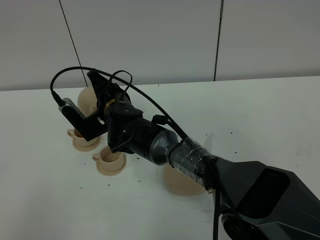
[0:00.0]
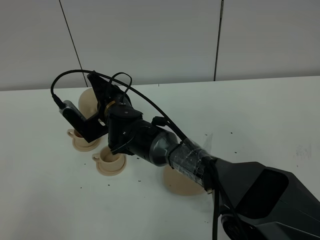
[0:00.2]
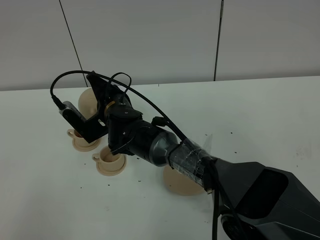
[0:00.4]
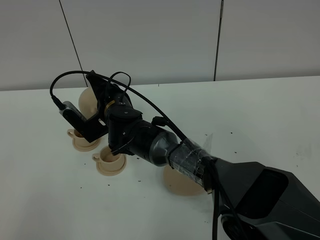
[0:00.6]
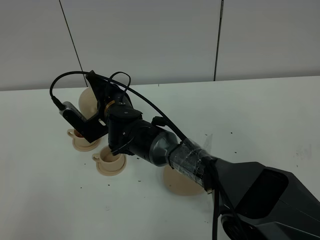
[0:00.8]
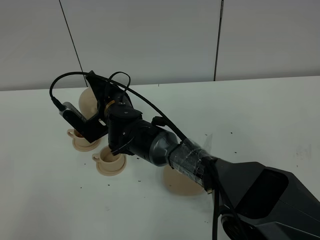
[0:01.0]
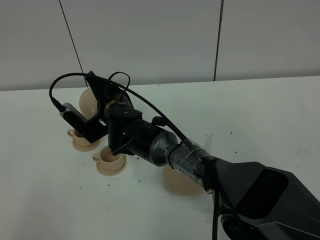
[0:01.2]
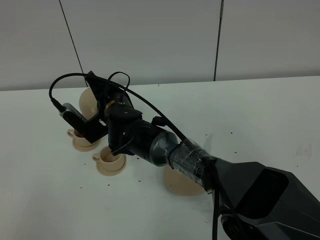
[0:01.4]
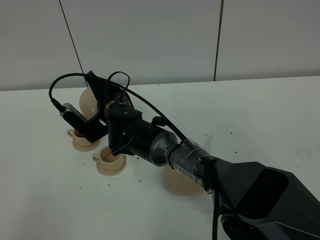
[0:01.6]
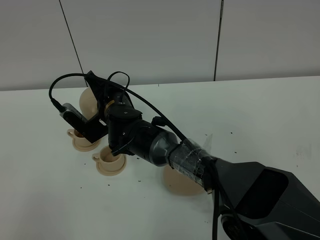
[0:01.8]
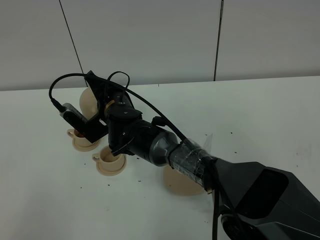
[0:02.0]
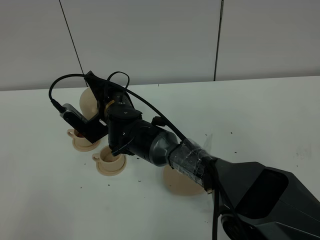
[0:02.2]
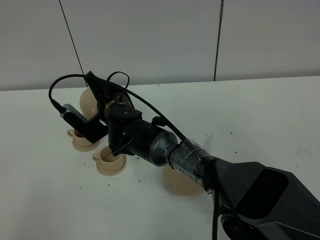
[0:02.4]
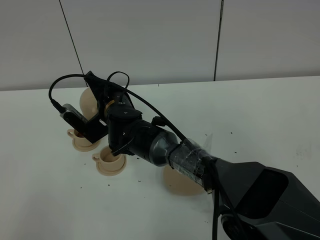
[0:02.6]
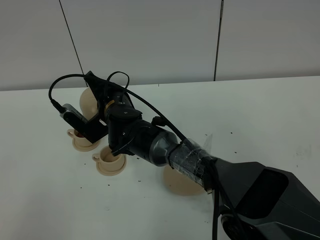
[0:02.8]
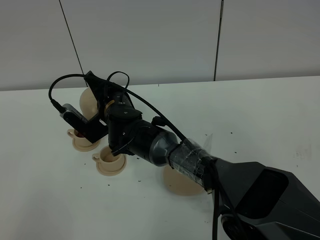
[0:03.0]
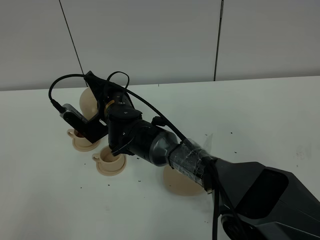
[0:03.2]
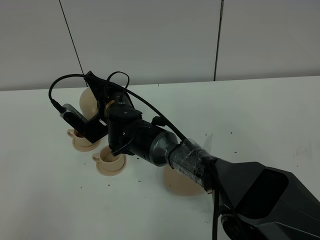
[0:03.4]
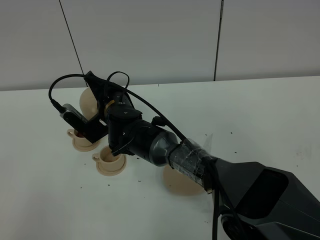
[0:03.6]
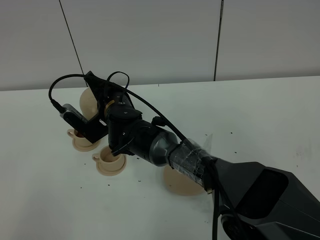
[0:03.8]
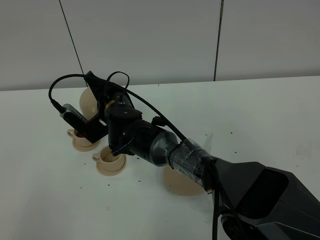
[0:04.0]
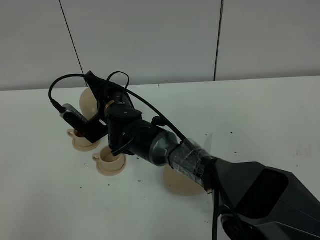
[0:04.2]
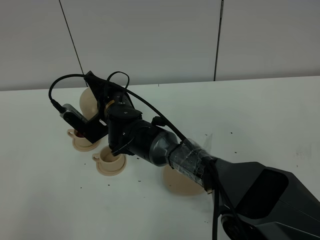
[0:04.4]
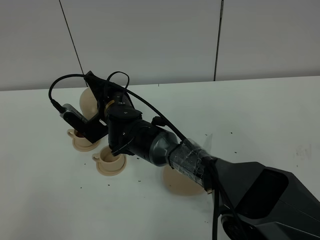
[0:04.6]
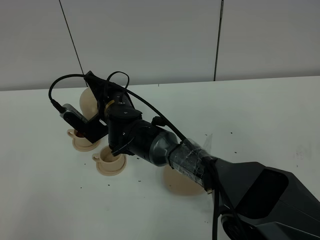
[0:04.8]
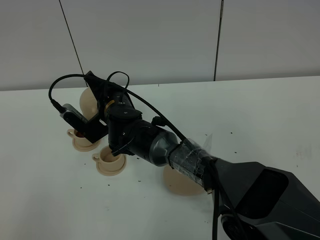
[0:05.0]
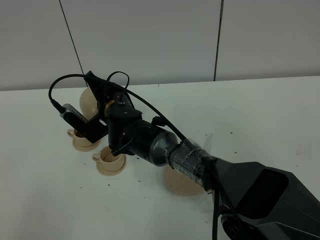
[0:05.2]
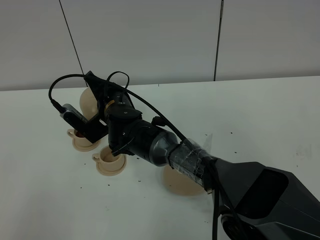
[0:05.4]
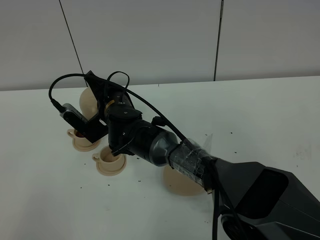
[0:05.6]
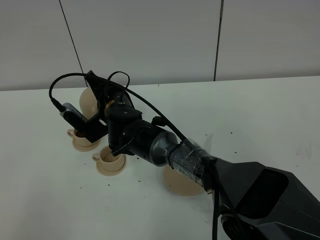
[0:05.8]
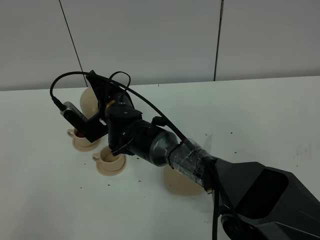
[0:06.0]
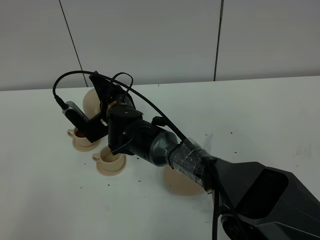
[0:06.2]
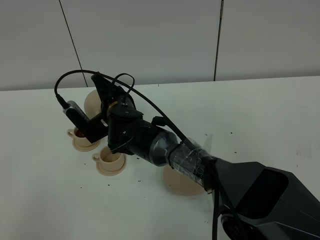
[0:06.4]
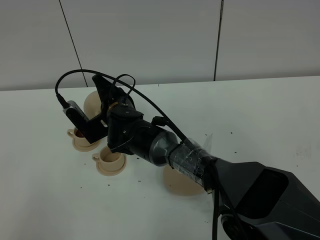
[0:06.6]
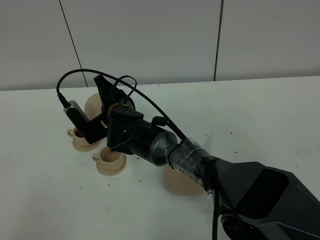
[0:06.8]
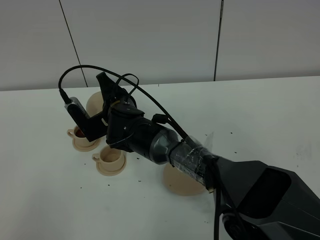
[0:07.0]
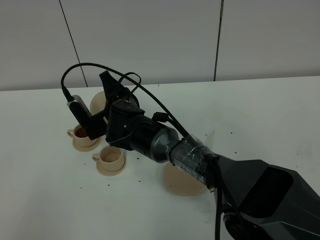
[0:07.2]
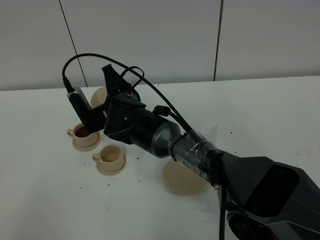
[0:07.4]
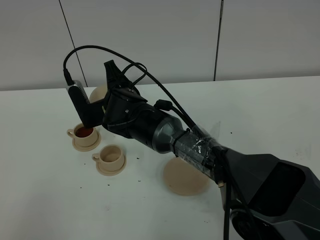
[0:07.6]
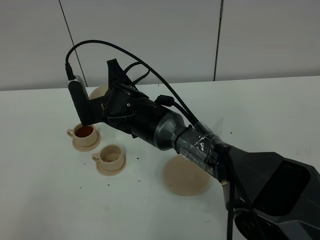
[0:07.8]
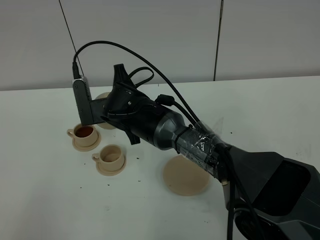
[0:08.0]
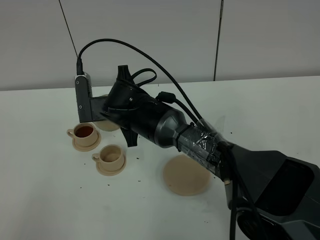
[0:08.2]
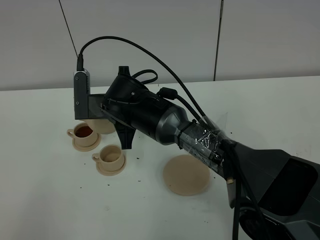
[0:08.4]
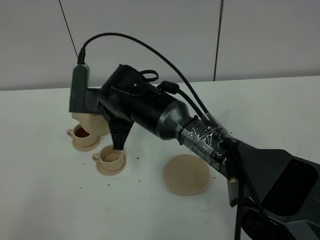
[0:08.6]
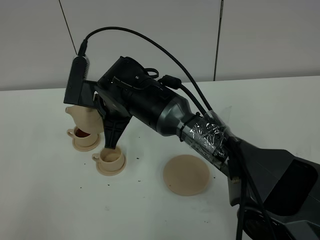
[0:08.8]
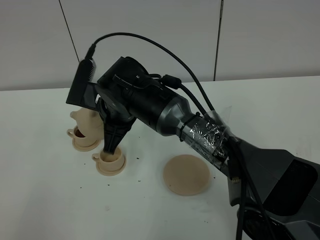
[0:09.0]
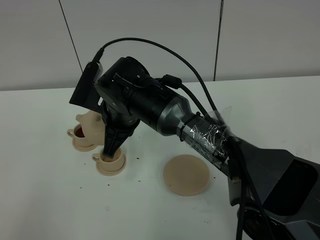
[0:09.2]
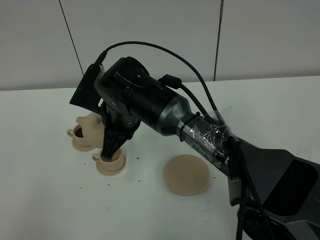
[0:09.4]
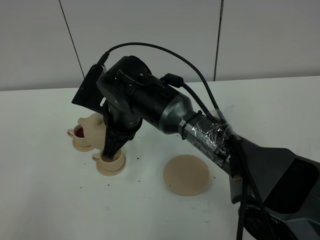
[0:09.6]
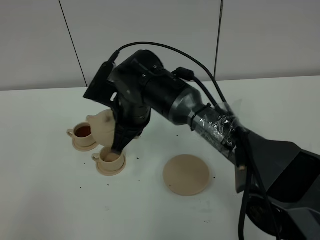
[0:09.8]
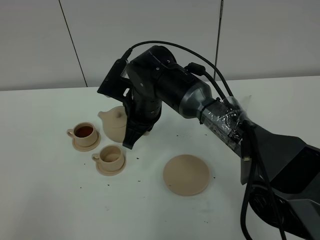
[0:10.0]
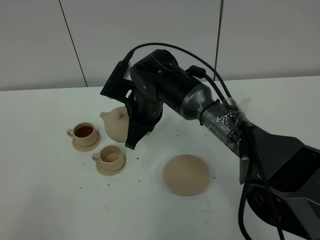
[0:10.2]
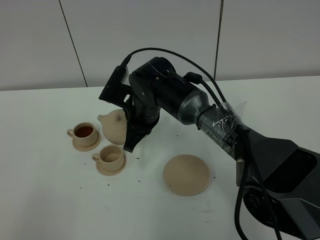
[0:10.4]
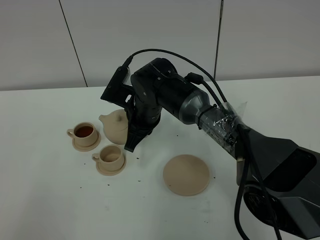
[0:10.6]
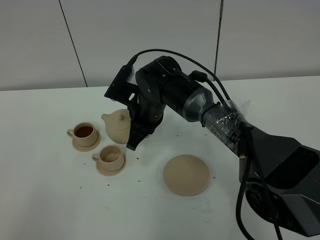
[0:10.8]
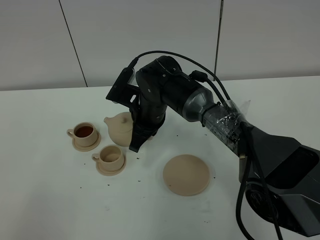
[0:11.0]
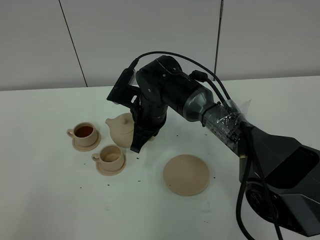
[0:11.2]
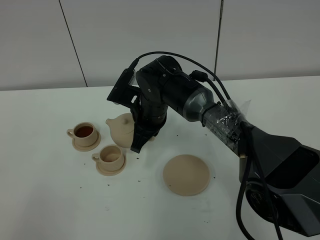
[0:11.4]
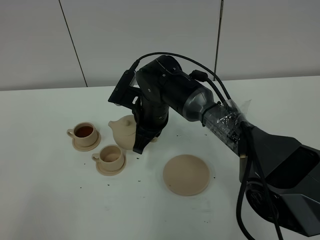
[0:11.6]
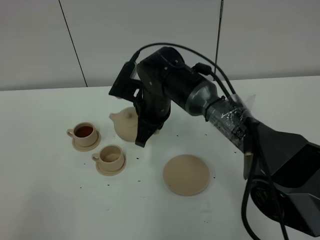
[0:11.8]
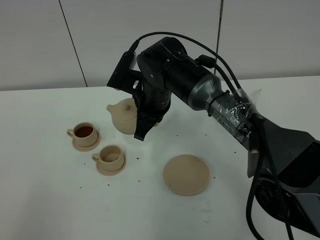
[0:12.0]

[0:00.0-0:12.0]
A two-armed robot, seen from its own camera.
Task of the whole recording: grasp the brown teapot and pour the tea into the two brown teacups one by one, put the brown teapot back in its original place.
Step, 0:00.0 to 0:06.0: Pour tea into the teacup with the right gripper.
0:00.0 to 0:01.6: The grippers move only a little.
0:01.6 to 0:06.0: Neither gripper changes place.
0:07.6 to 0:09.0: The right gripper ends up approximately 5 cm from where it was.
0:09.0 to 0:10.4: The right gripper changes place by approximately 10 cm.
0:10.4 to 0:12.0: The grippers stay close to where they were, moving slightly.

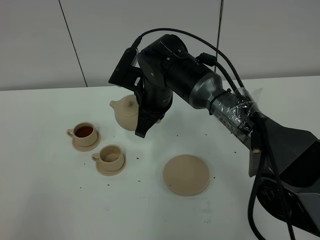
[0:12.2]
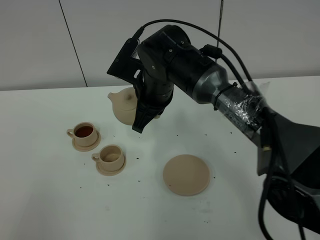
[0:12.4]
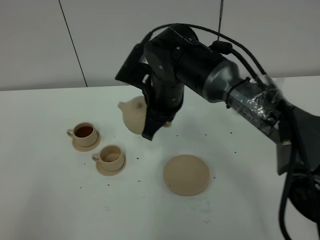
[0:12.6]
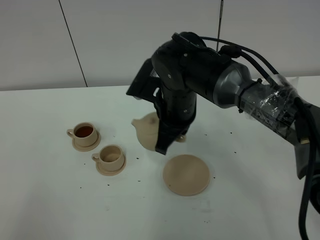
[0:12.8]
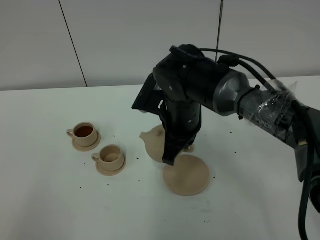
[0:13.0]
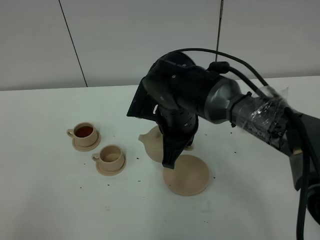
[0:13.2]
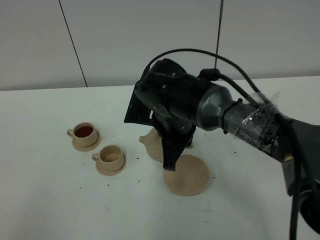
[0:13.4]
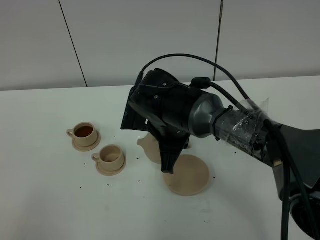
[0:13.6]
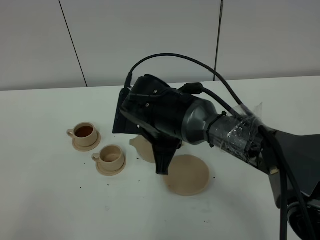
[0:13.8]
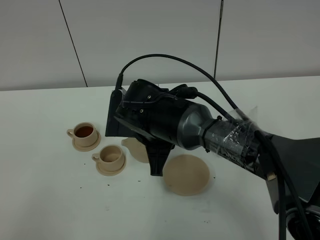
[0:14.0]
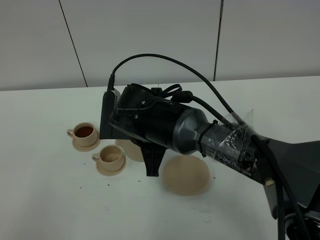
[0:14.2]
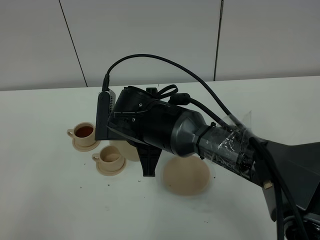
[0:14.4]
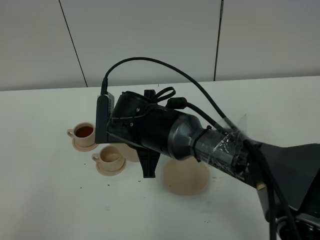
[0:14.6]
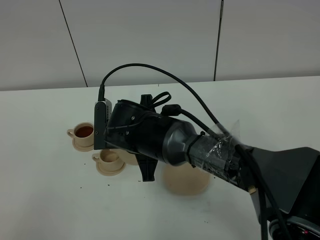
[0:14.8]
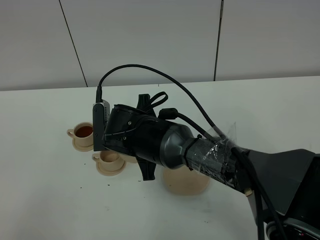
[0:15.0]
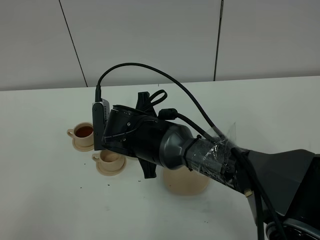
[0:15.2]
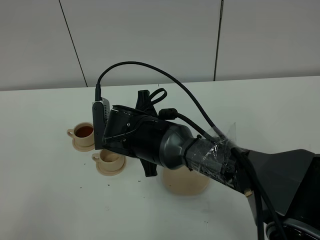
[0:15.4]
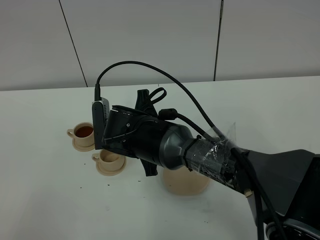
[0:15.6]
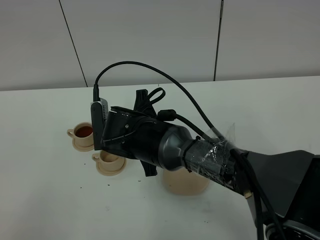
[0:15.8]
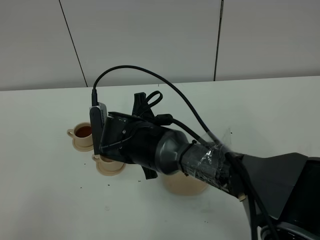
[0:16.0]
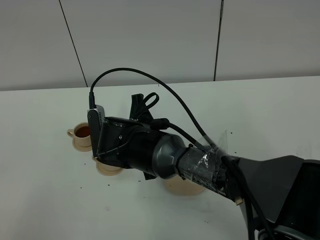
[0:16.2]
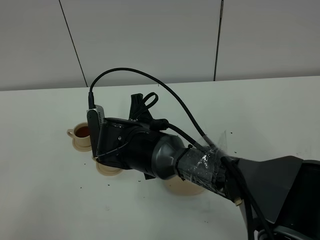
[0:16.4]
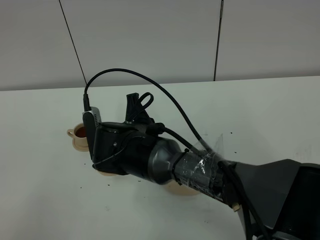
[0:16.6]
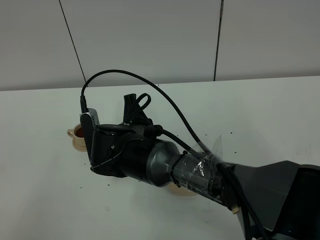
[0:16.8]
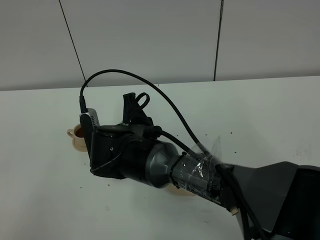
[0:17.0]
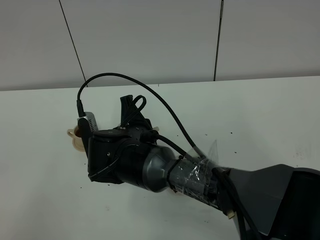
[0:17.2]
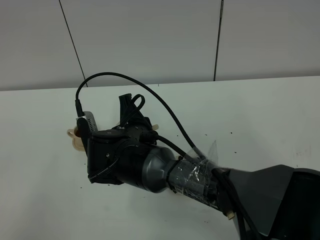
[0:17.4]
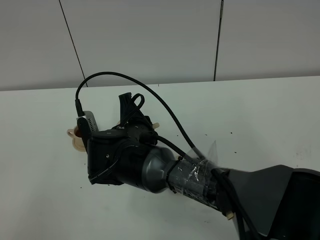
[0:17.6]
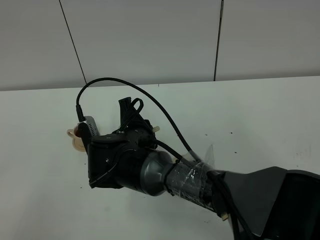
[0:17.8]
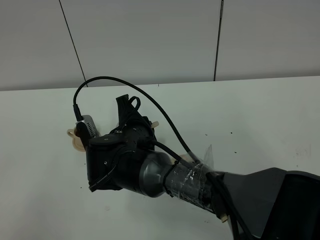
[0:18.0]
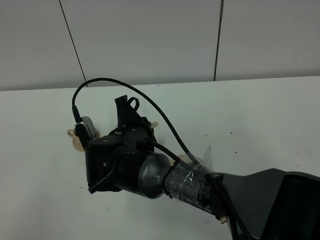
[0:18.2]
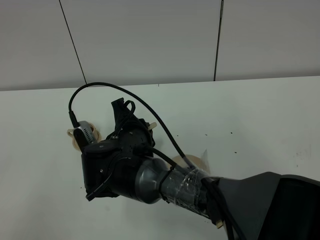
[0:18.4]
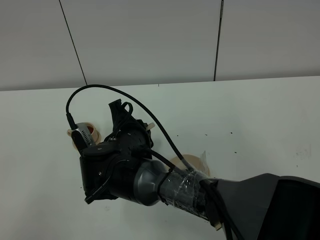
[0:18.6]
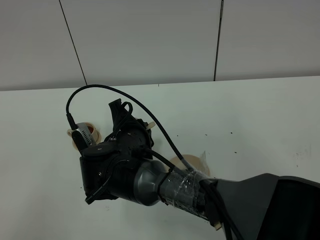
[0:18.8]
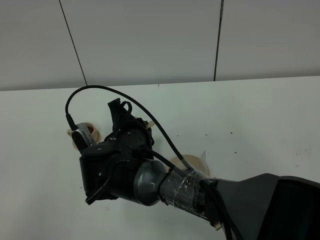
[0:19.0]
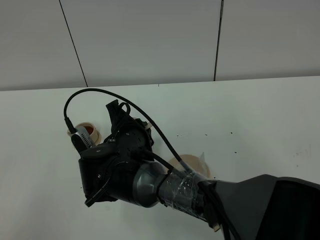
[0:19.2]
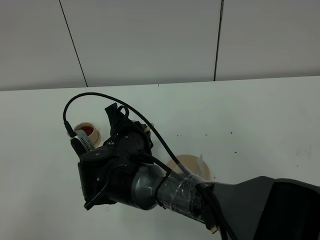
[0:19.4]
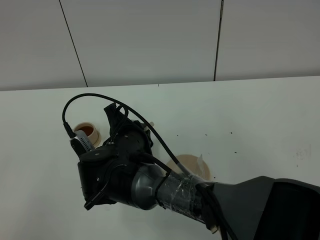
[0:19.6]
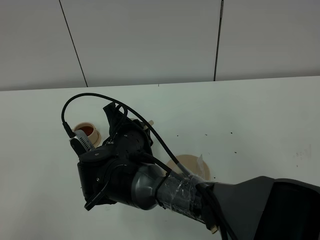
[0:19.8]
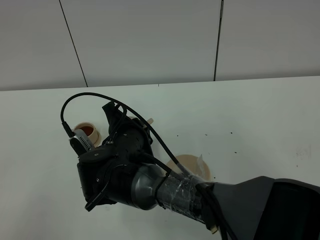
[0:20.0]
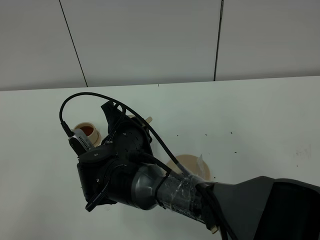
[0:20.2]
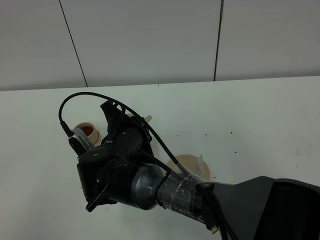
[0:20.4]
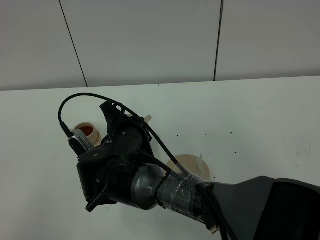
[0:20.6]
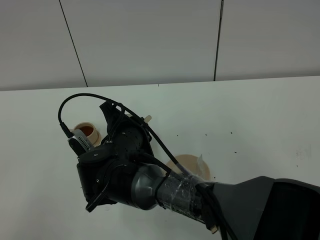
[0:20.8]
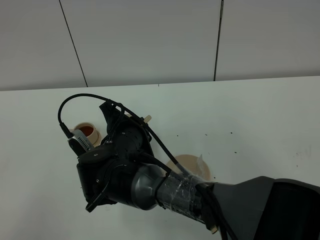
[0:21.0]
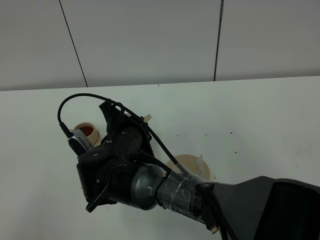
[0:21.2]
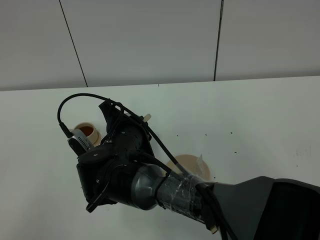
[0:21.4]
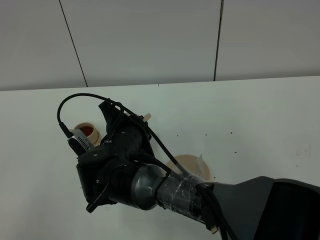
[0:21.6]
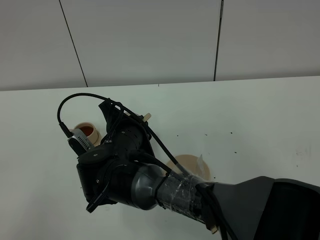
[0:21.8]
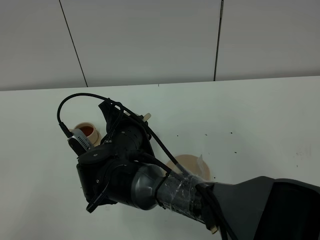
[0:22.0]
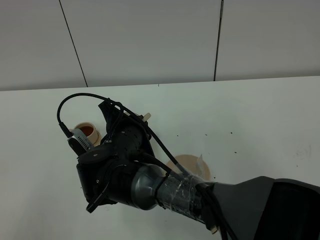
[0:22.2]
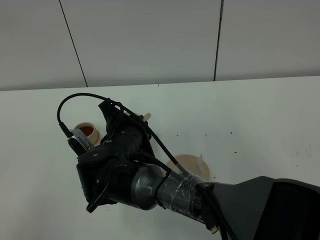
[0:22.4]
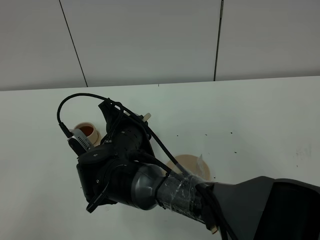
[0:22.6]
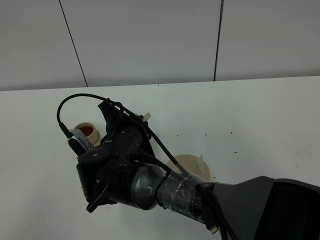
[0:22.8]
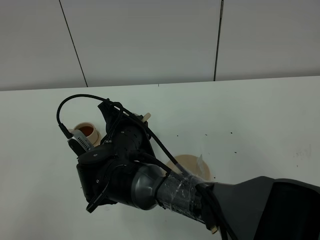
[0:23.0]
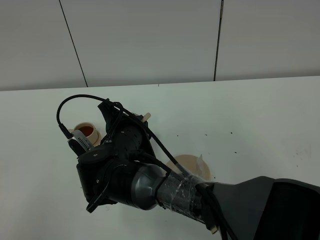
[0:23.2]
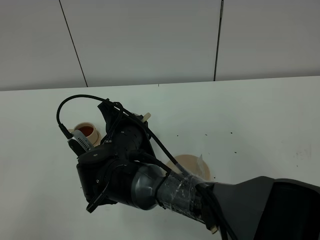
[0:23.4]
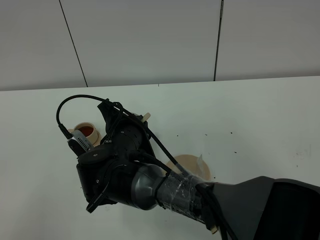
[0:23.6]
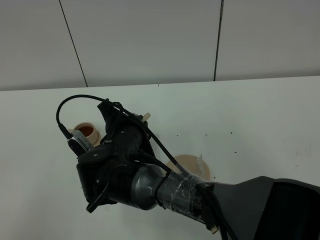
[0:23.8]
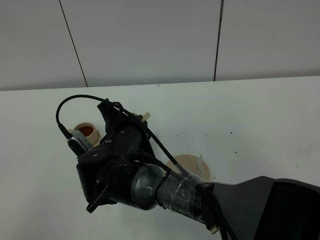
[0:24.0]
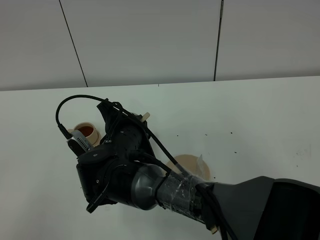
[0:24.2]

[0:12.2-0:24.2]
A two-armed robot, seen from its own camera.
Task of the whole recording: grasp the brown teapot and pour the tea into the two brown teacups one by one, put the brown teapot back in its original place.
0:12.2 to 0:13.8: The right gripper goes some 5 cm backward.
0:15.2 to 0:16.6: There are only small adjustments of the grippers.
0:16.6 to 0:18.2: The grippers stay close to where they were, moving slightly.
0:18.2 to 0:19.8: The grippers stay close to where they were, moving slightly.
0:19.8 to 0:21.2: The two grippers keep their place.
0:21.2 to 0:24.2: Neither gripper changes place.
